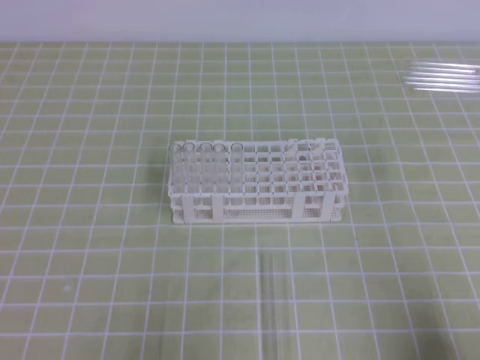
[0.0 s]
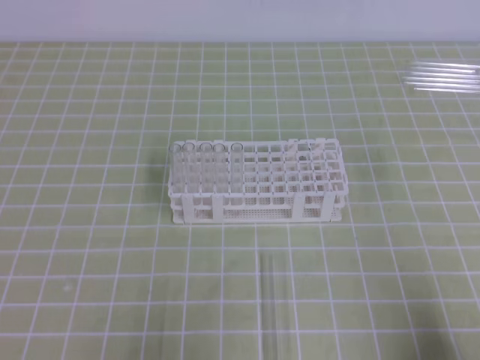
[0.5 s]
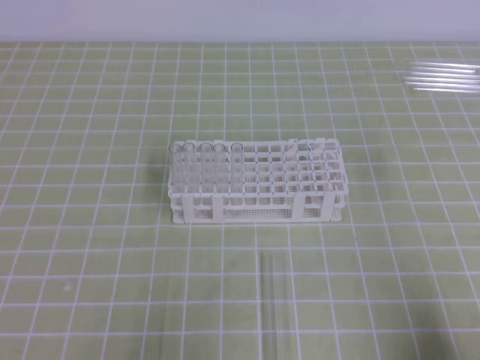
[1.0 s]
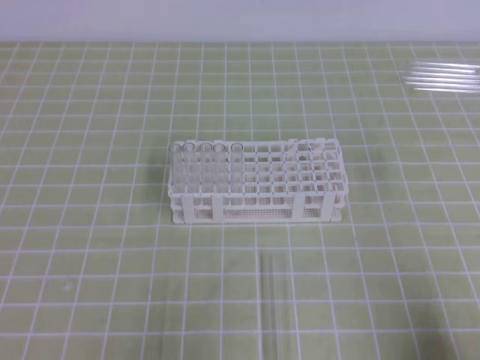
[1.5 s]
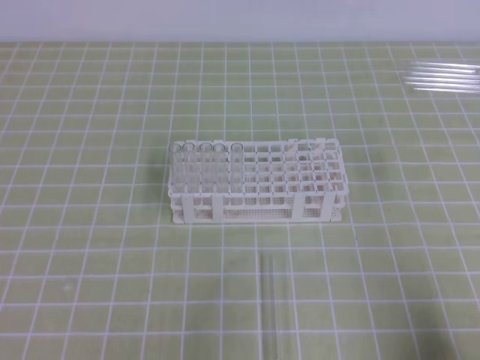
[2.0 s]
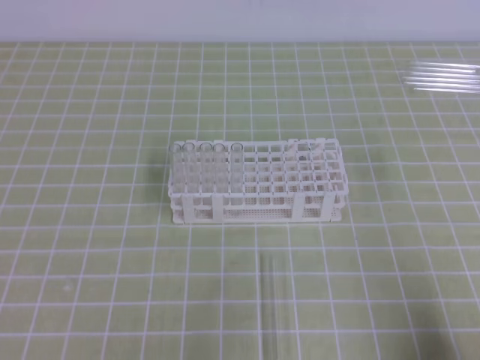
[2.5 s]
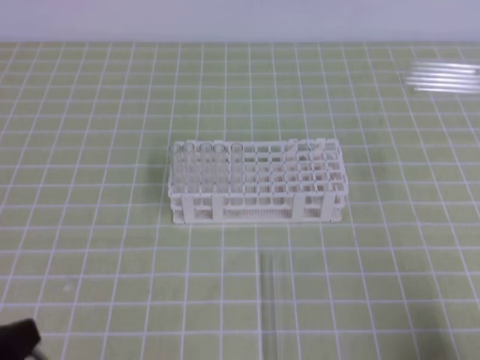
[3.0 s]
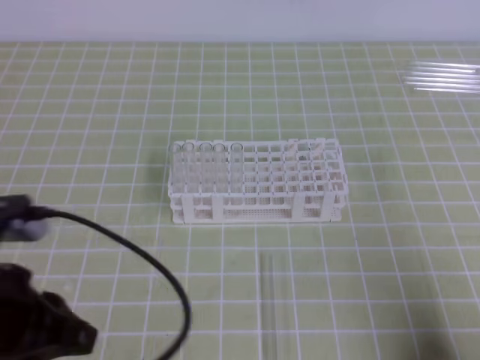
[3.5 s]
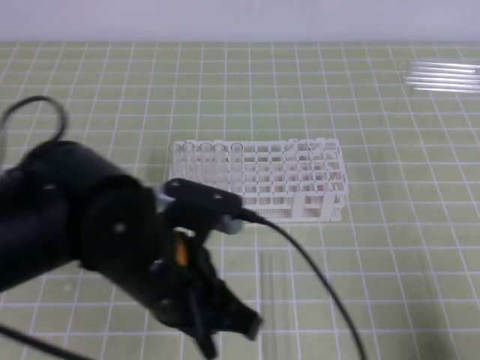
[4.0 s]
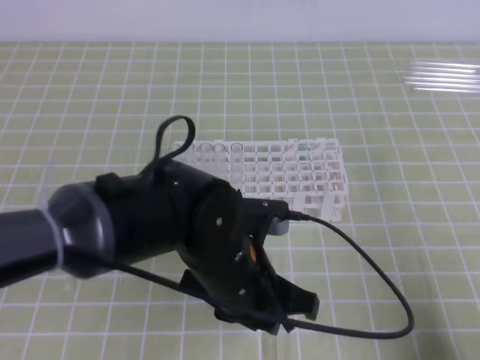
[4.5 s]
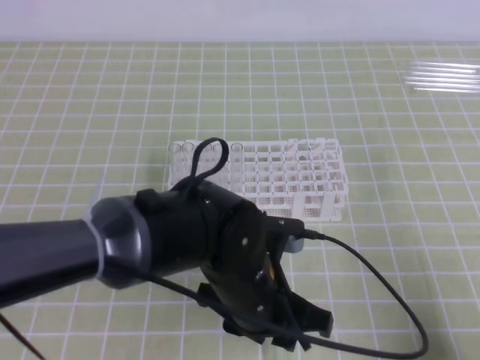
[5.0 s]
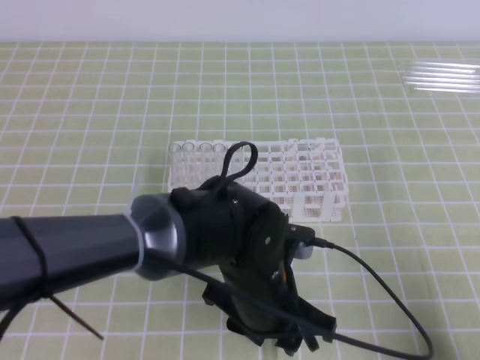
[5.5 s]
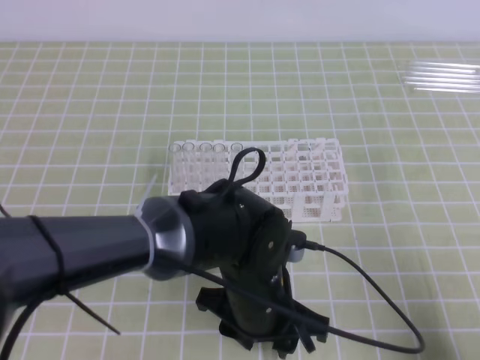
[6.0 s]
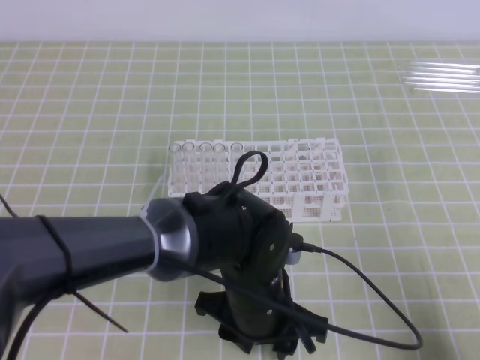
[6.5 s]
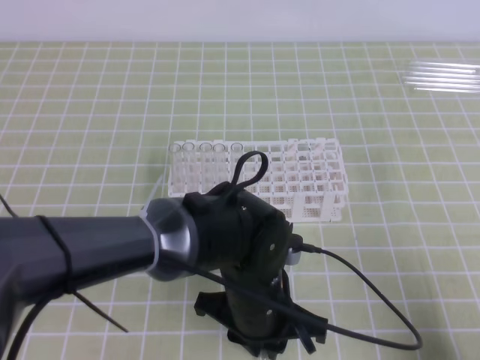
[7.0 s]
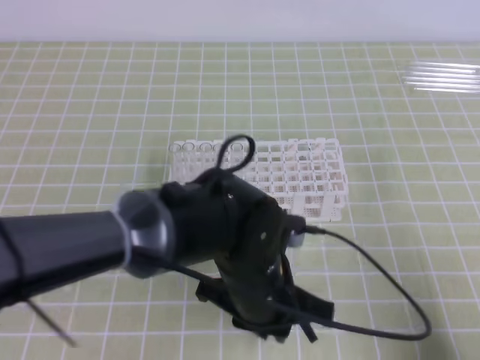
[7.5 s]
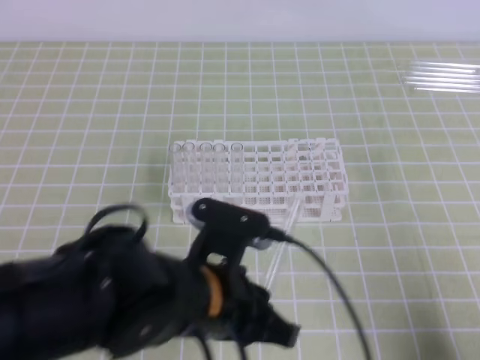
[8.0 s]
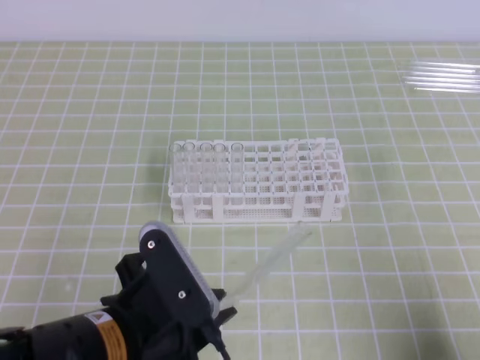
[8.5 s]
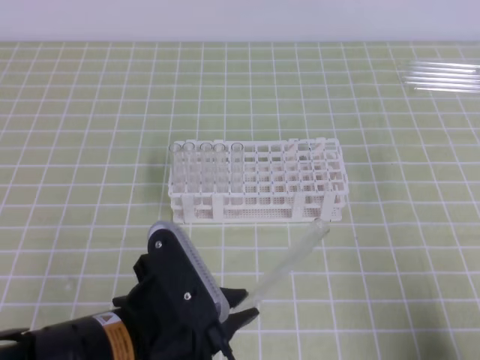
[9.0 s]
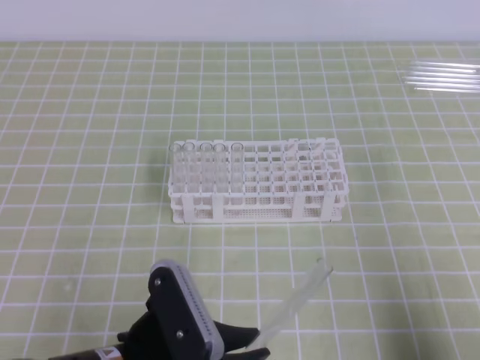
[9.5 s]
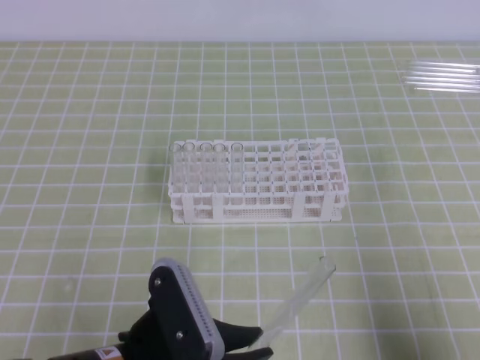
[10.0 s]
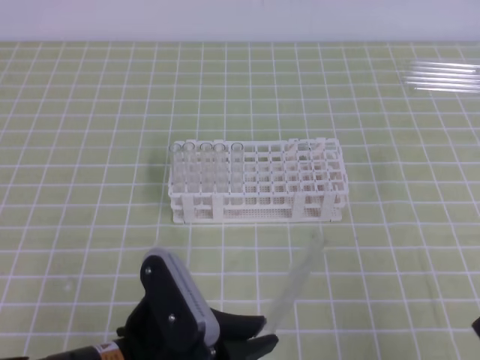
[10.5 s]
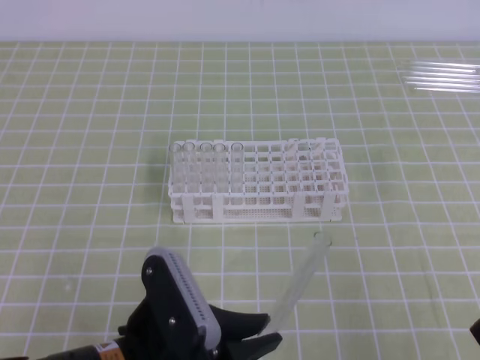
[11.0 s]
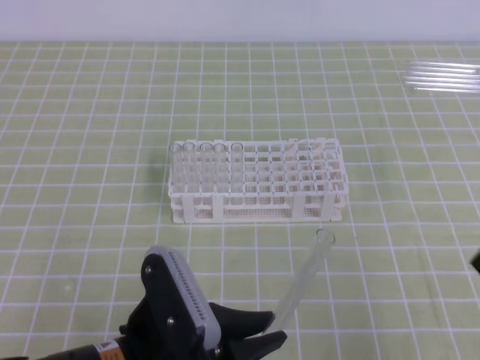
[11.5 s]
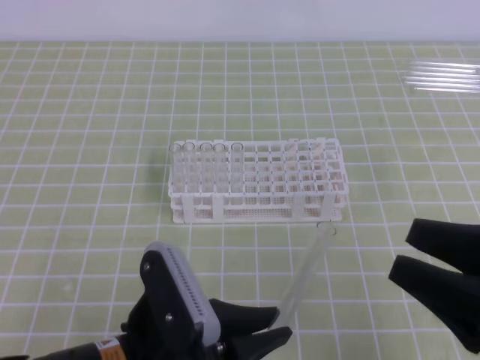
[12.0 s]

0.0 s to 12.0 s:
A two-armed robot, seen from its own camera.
2.0 to 4.0 s: The left gripper is displaced to the right and forward by roughly 20 cm.
4.0 to 6.0 s: The left gripper goes roughly 15 cm to the right and downward, and opens its fingers.
6.0 to 8.0 s: The left gripper is displaced upward and to the left by roughly 10 cm, and closes its fingers.
8.0 to 10.0 s: The left gripper shifts approximately 10 cm backward and to the left.
10.0 to 12.0 s: The right gripper heads upward, to the left and forward, covering about 10 cm, and opens.

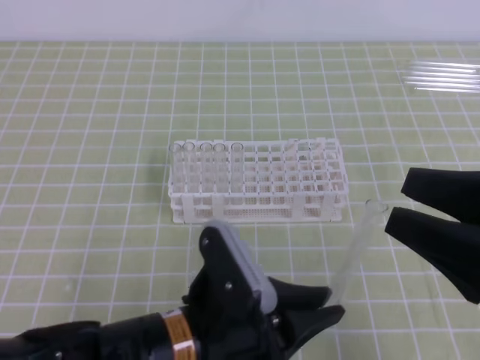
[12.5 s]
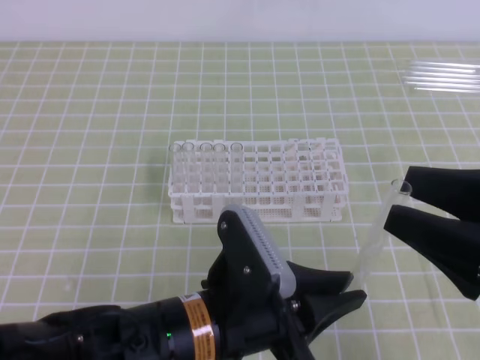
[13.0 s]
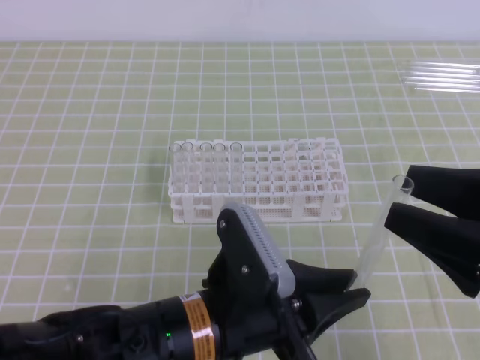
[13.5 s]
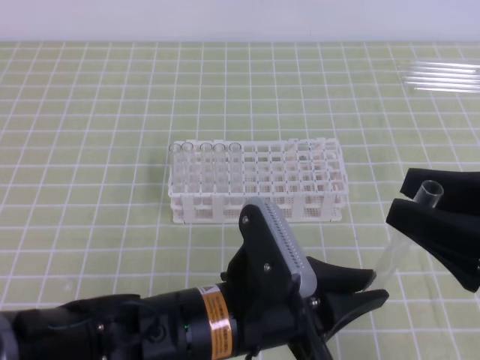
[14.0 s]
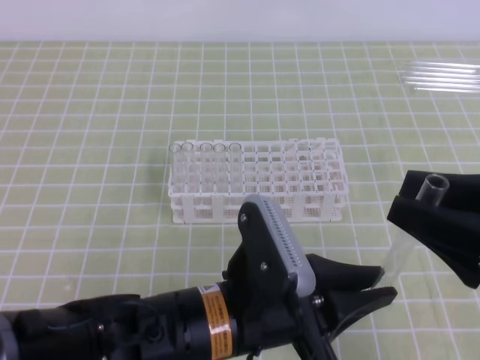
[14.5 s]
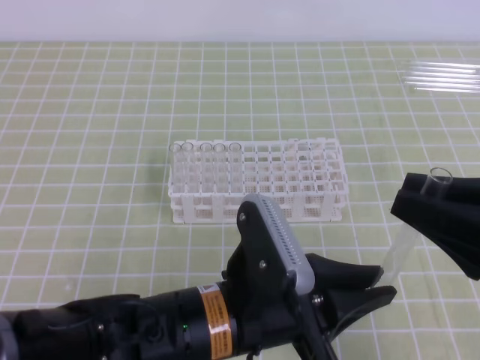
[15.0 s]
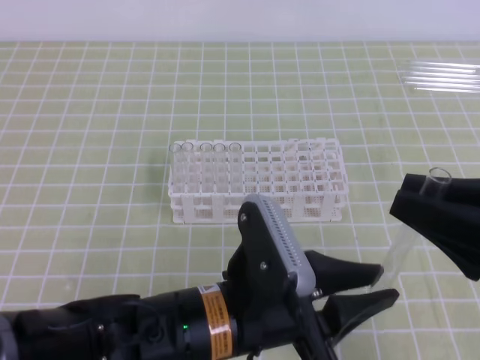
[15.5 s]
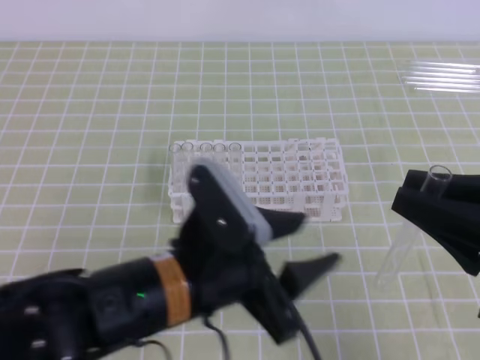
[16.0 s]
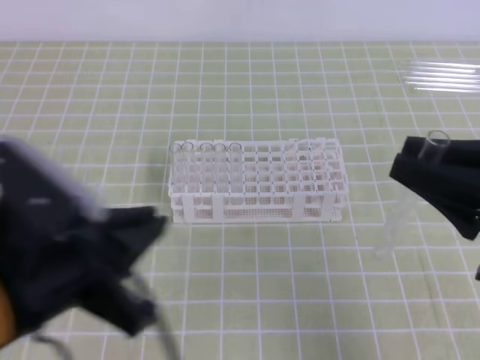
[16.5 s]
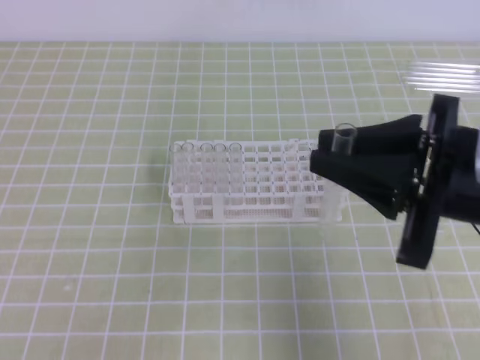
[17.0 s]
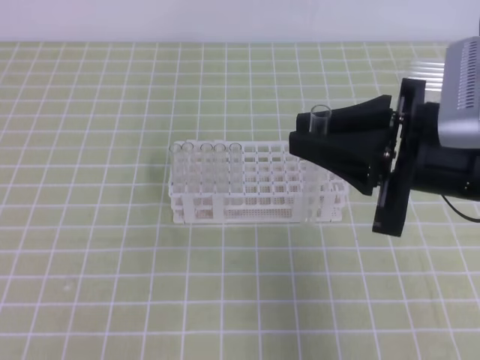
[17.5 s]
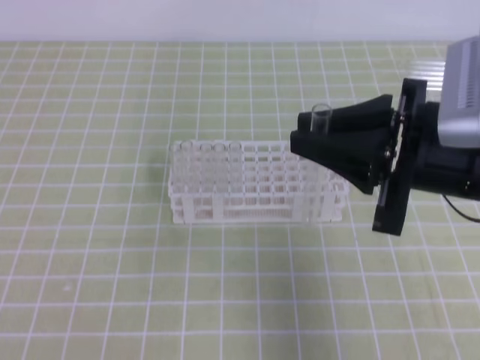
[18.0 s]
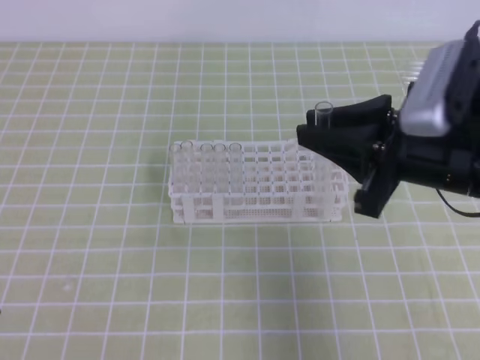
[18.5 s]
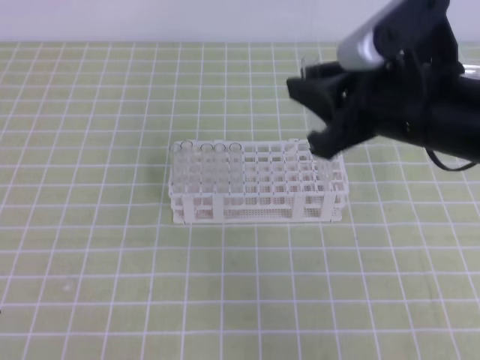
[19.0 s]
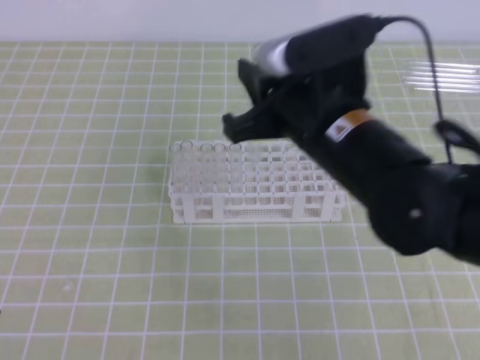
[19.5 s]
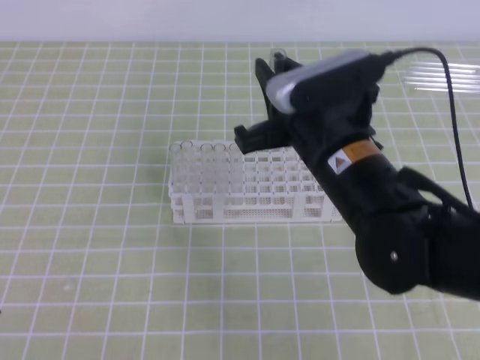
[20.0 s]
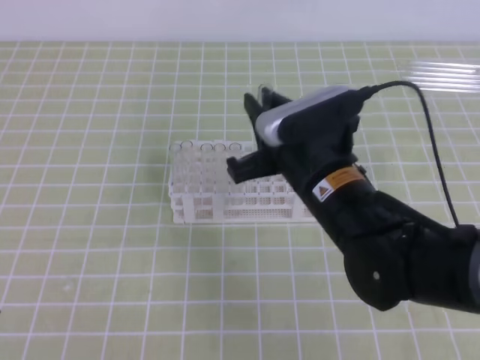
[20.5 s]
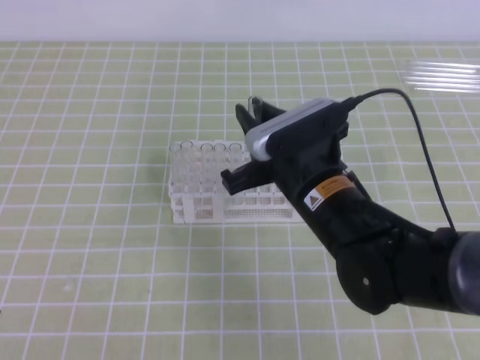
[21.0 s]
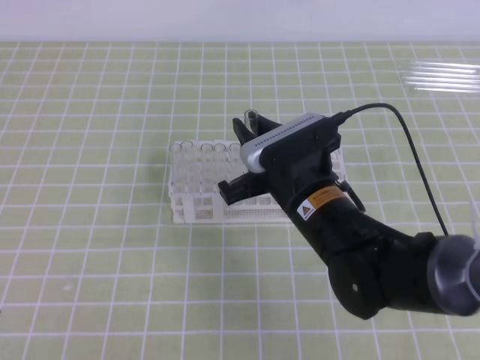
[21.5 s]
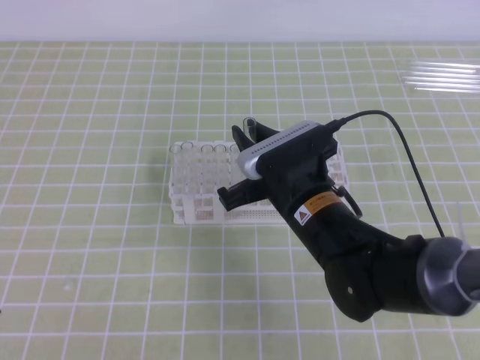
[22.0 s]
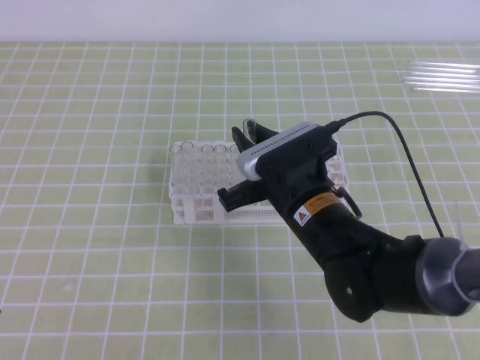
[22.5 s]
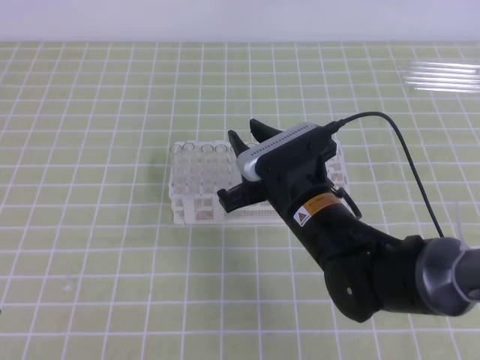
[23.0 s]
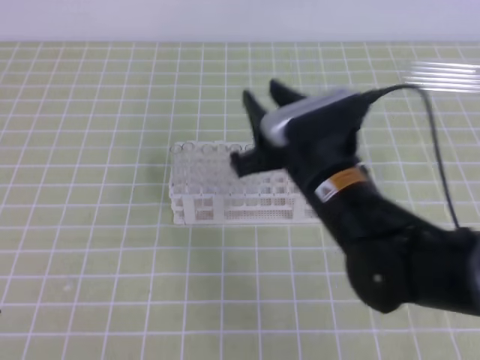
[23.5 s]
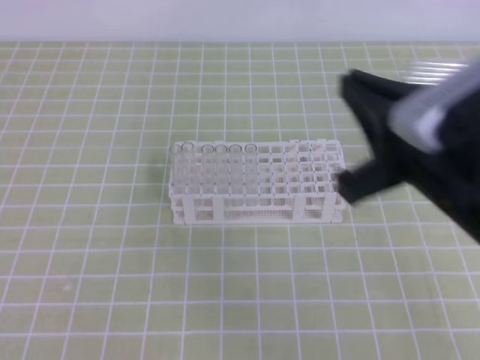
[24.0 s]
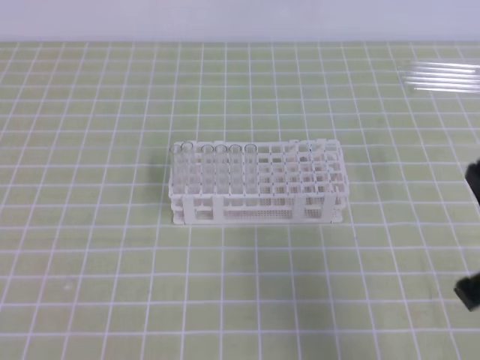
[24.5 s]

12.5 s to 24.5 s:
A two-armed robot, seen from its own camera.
12.5 to 14.5 s: The right gripper closes its fingers.
14.5 to 16.5 s: The left gripper is displaced to the left and upward by about 15 cm, and opens, then closes again.
16.5 to 18.5 s: The left gripper is displaced to the left and backward by approximately 15 cm, while the right gripper shifts roughly 10 cm forward and to the left.
18.5 to 20.5 s: The right gripper goes roughly 10 cm to the left and downward.
20.5 to 22.5 s: The right gripper is displaced downward by approximately 5 cm.
22.5 to 24.5 s: The right gripper shifts about 25 cm to the right, backward and upward, and opens and closes again.

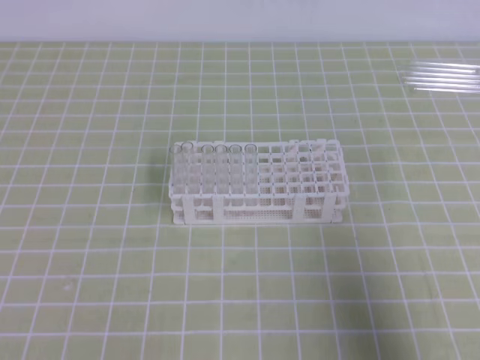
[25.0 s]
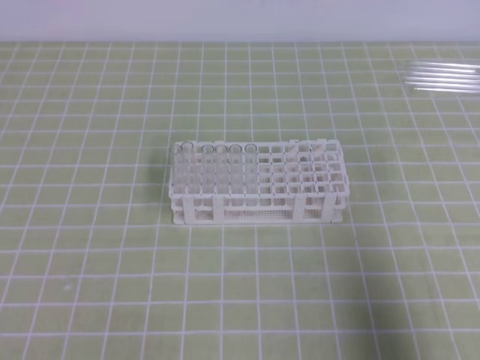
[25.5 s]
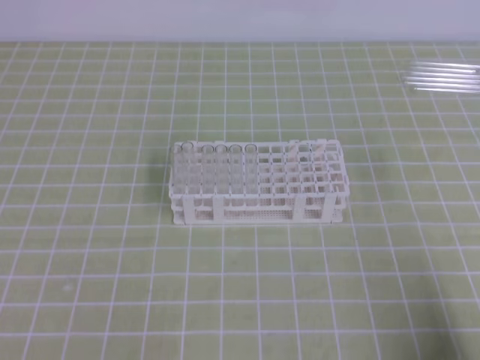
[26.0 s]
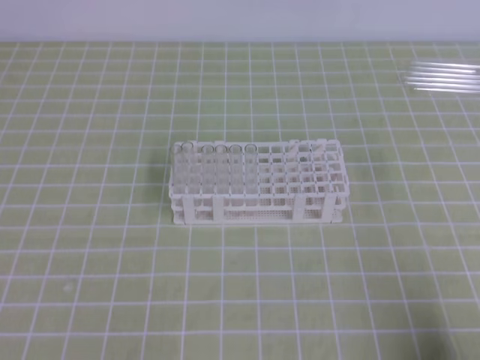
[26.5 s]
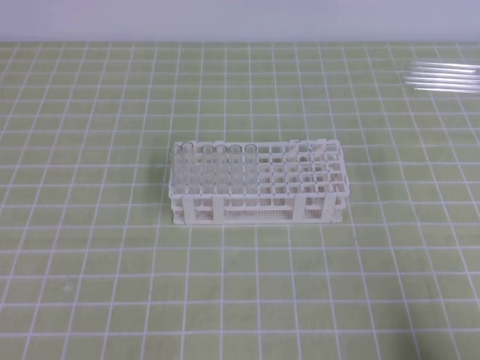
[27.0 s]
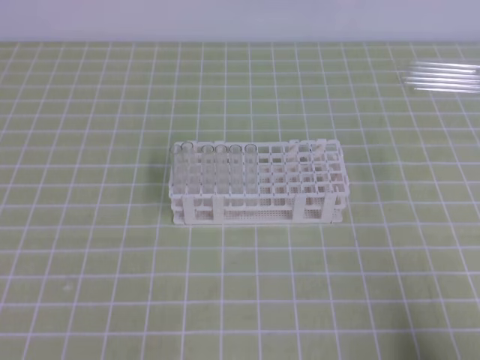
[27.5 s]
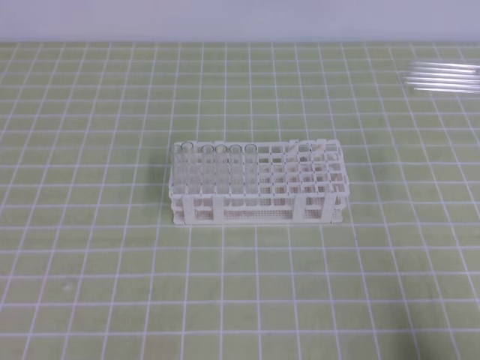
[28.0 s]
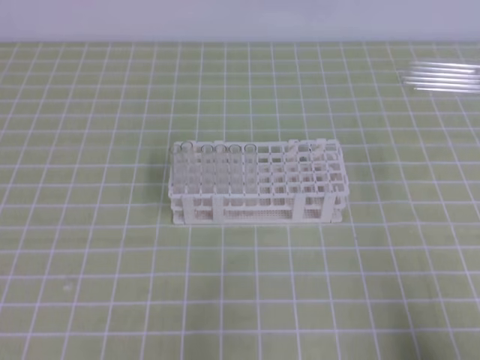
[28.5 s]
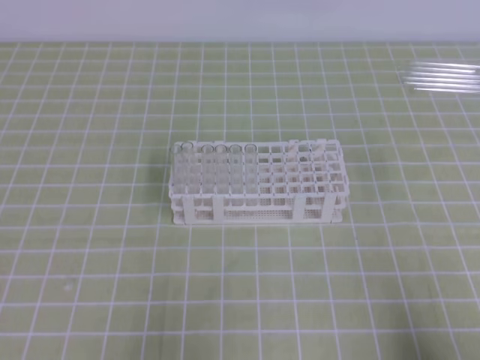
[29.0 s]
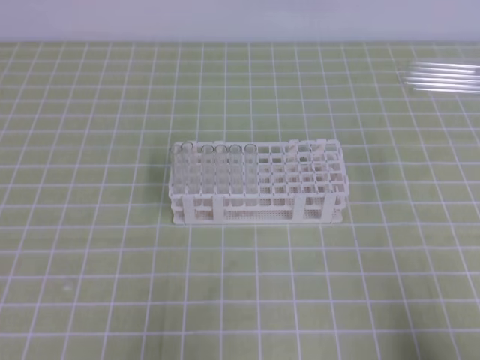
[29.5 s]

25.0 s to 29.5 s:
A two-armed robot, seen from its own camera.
25.0 to 27.0 s: The right gripper shifts approximately 10 cm downward.
